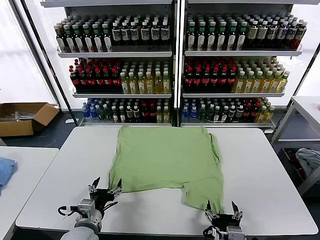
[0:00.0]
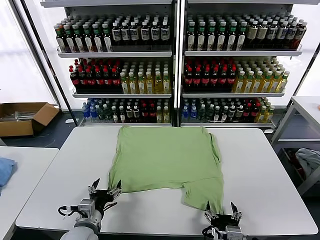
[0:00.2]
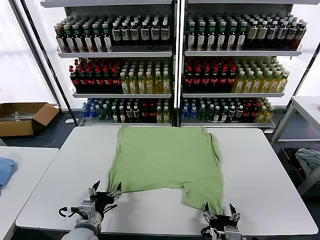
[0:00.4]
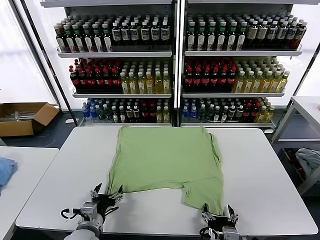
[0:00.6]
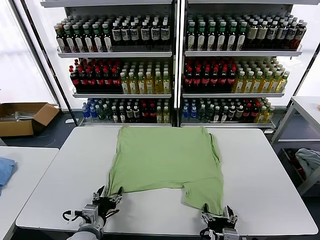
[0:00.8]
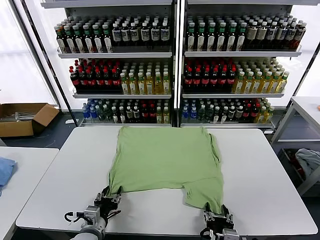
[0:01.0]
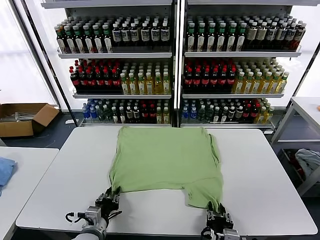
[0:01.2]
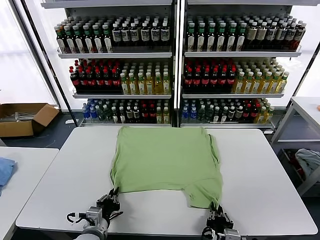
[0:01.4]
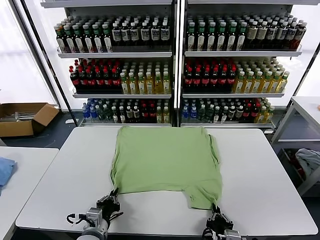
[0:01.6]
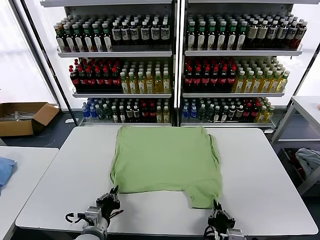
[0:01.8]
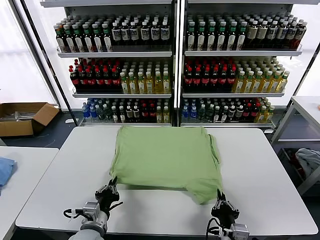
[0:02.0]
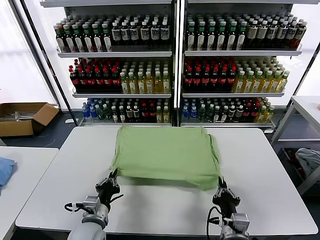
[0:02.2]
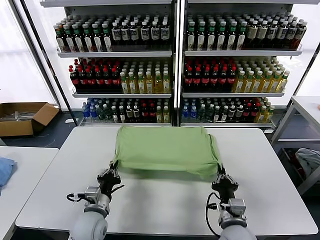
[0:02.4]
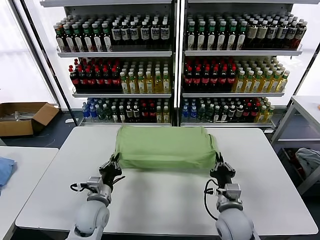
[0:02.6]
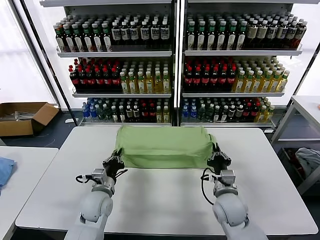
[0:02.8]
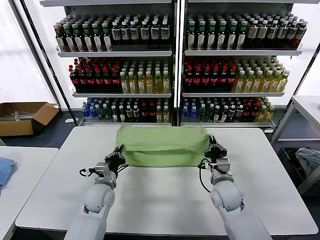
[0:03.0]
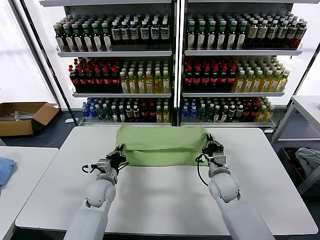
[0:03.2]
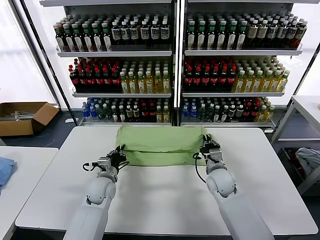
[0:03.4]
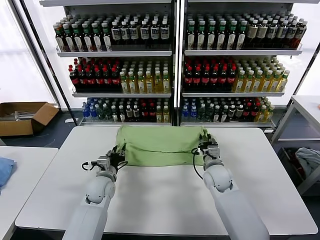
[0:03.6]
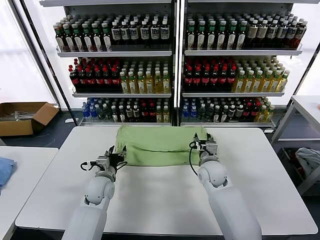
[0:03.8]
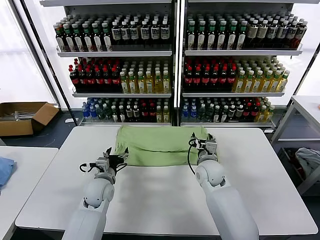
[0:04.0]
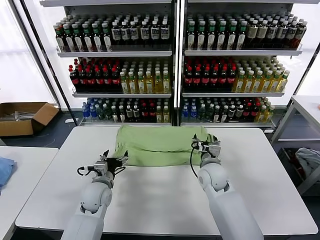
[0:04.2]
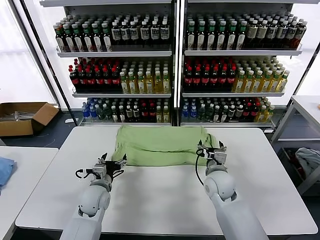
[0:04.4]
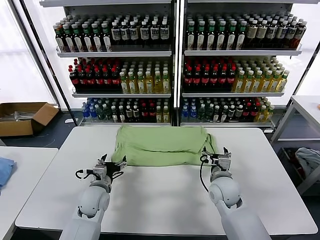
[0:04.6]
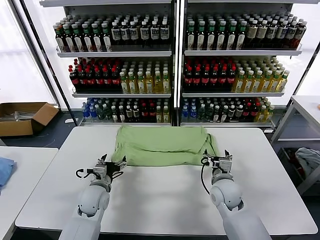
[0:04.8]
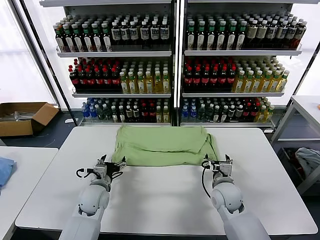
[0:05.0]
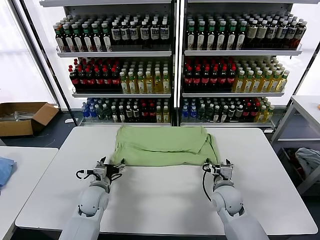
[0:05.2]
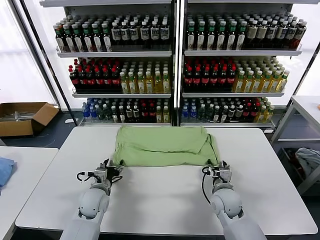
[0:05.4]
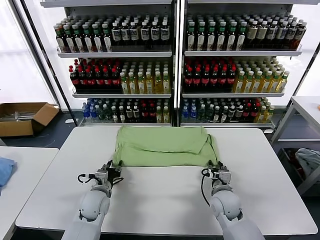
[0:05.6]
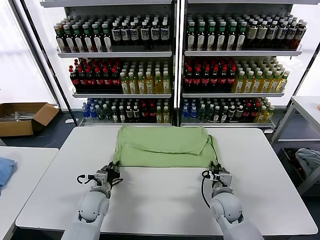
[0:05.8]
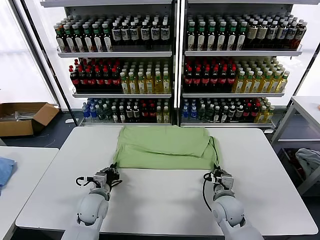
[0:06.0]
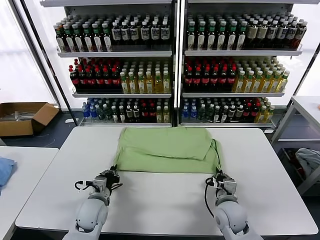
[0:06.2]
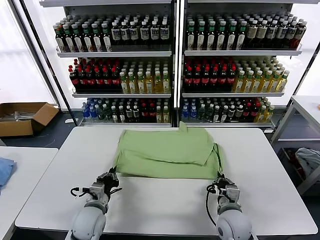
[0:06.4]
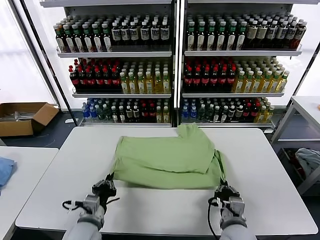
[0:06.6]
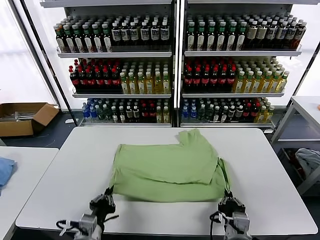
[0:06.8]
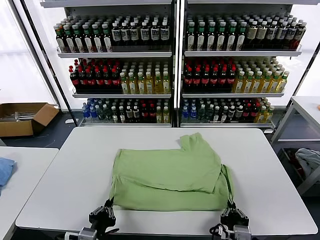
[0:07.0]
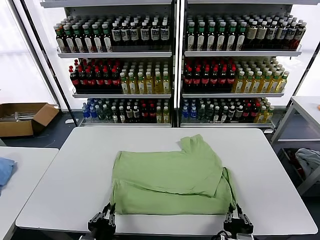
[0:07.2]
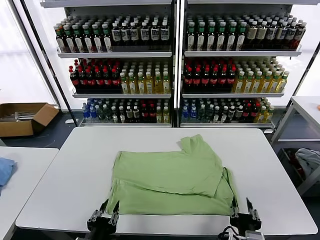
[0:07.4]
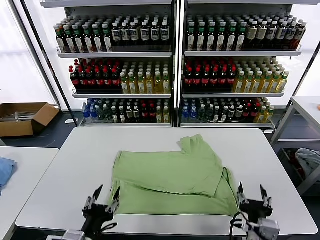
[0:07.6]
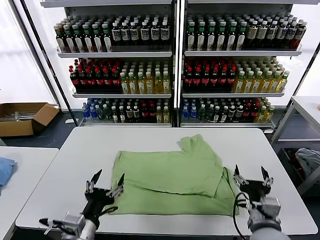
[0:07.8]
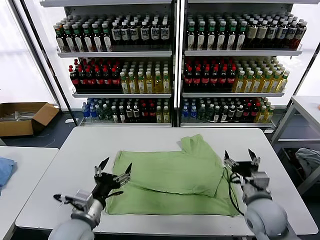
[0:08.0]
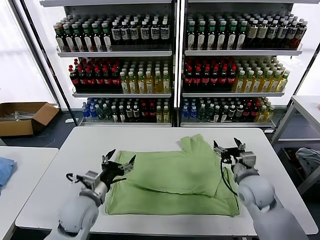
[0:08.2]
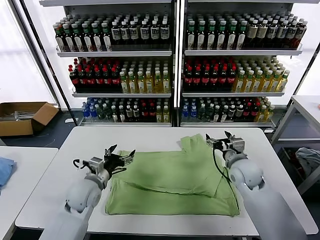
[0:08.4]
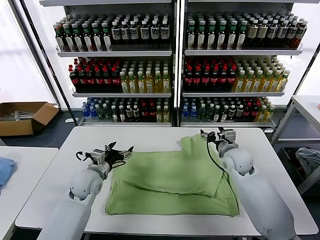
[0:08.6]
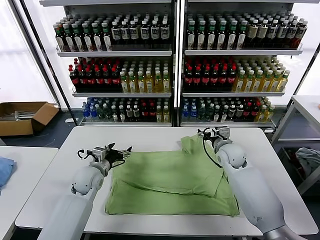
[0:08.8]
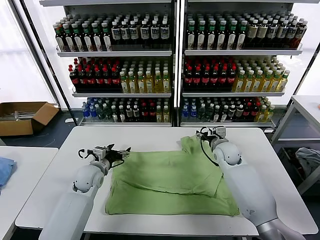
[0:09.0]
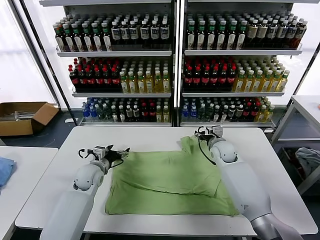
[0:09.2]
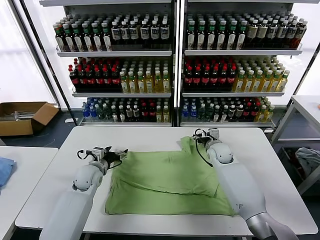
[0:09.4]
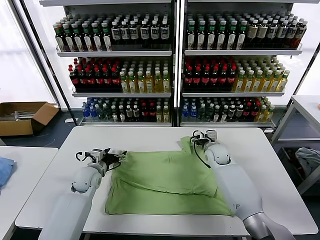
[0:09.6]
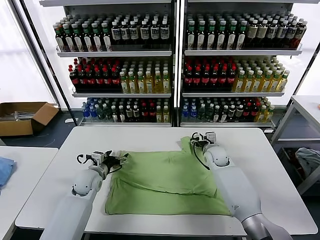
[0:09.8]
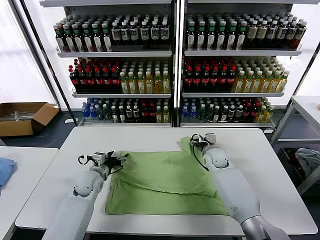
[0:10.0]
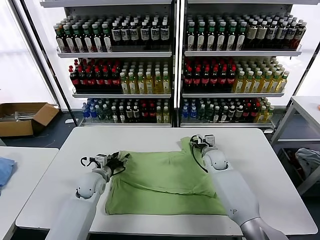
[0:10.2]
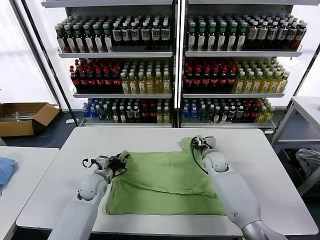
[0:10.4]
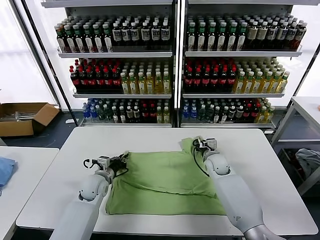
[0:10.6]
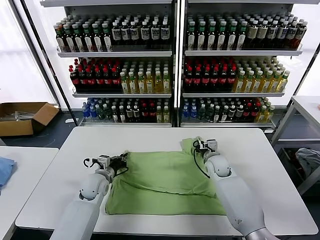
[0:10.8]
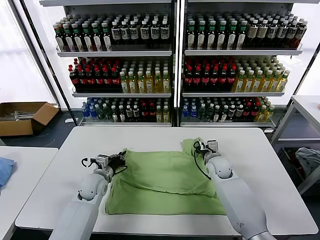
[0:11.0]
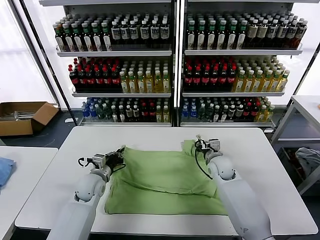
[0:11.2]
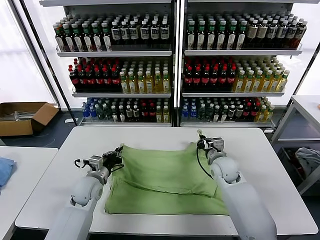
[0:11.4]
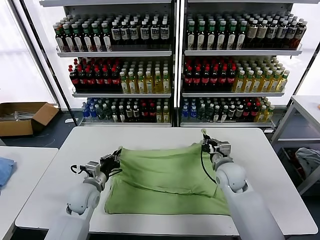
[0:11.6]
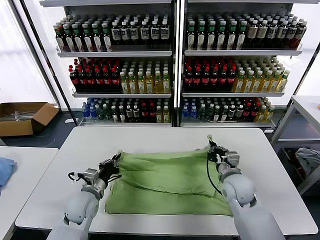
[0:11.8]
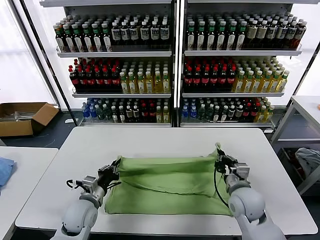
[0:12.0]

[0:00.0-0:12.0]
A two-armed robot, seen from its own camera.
Task of the whole recording: fold and organize the clothes.
Step, 0.0 to 1.6 s: use both grippers simultaneously to clamp the lower edge of the clothing fabric.
Step, 1.8 to 3.6 s: use both grippers to drag the lower edge of the fabric forward and fold it over the upper edge.
Step, 3.8 to 7.2 s: Drag the clothes downward with both gripper.
Step, 7.6 to 10.8 s: use both grippers simultaneously to clamp the upper edge of the clothing fabric.
1.6 to 3.0 s: Both grippers travel together forward, some 20 cm.
3.0 to 4.4 s: The left gripper opens. The right gripper opens up.
4.4 to 6.0 s: The right gripper is displaced backward and downward by about 10 cm, and closes up. The left gripper closes up.
6.0 to 7.6 s: The two grippers go about 20 cm backward and upward. The left gripper opens, while the right gripper opens.
7.6 to 9.0 s: Both grippers travel together forward, roughly 35 cm.
9.0 to 10.4 s: The left gripper closes up. The right gripper shifts approximately 5 cm downward, and closes.
10.4 to 12.0 s: The right gripper shifts about 20 cm backward, and closes its fingers. The left gripper is displaced backward by some 10 cm, and closes.

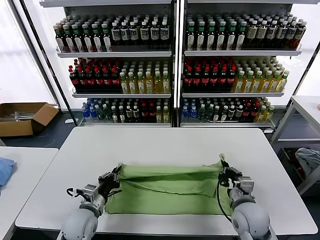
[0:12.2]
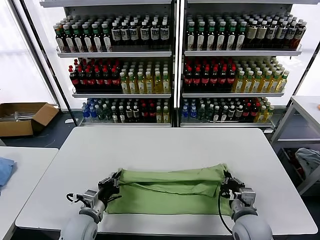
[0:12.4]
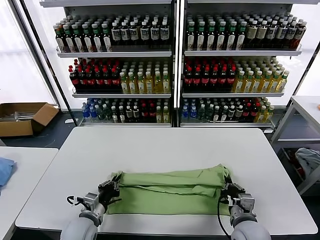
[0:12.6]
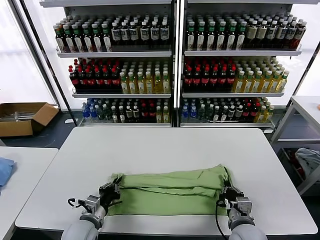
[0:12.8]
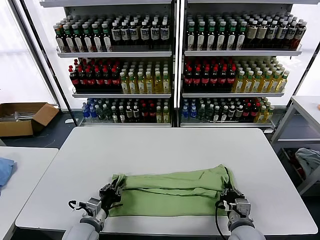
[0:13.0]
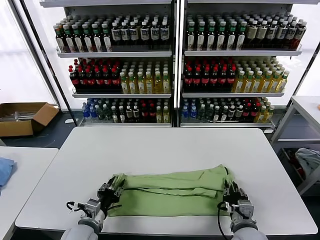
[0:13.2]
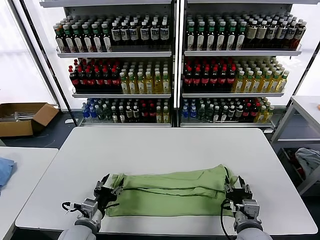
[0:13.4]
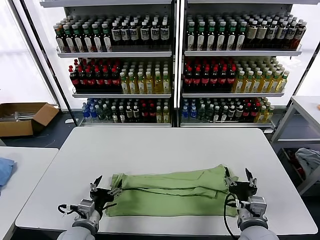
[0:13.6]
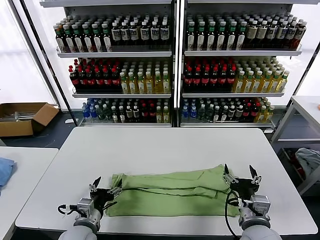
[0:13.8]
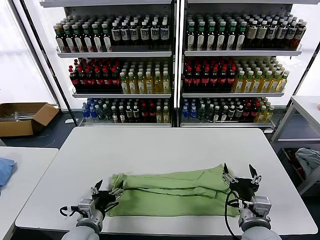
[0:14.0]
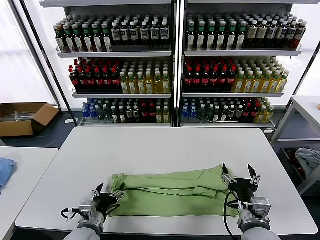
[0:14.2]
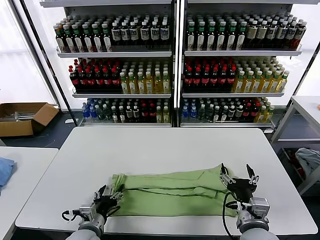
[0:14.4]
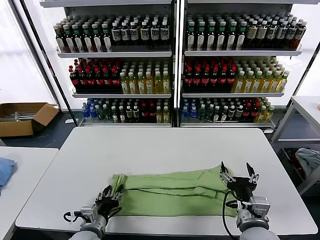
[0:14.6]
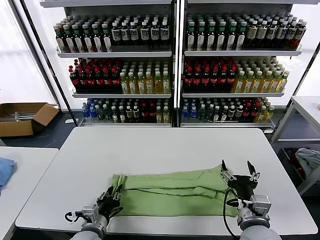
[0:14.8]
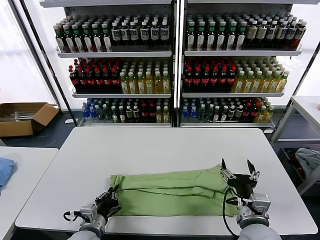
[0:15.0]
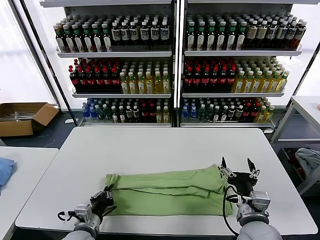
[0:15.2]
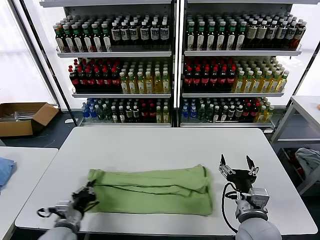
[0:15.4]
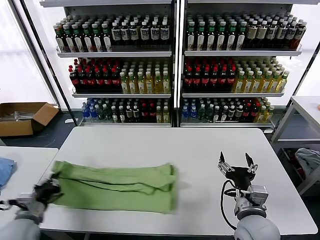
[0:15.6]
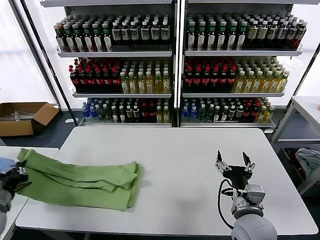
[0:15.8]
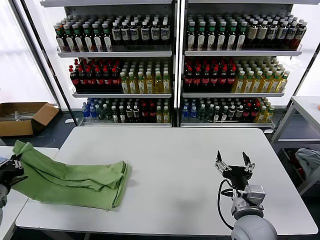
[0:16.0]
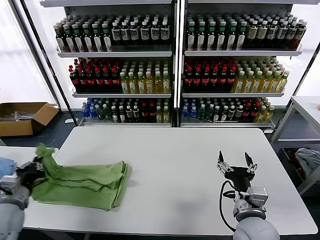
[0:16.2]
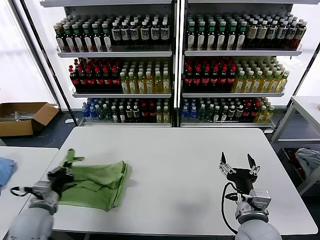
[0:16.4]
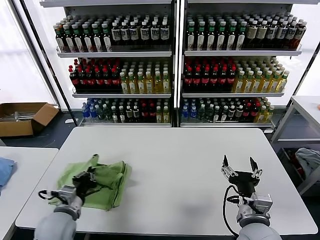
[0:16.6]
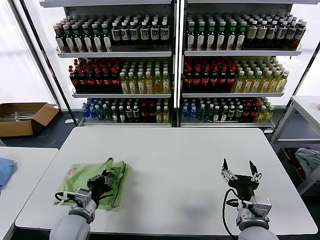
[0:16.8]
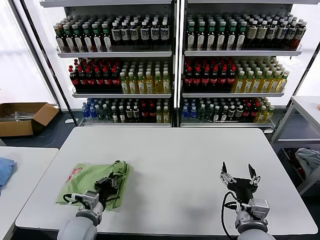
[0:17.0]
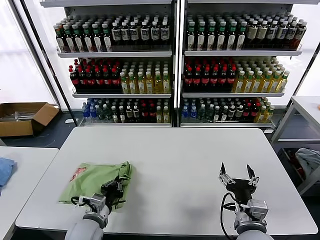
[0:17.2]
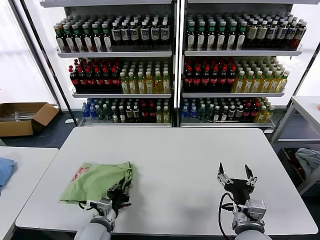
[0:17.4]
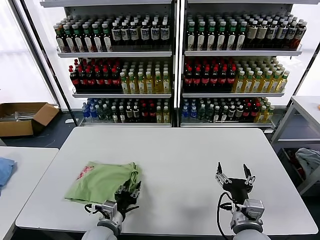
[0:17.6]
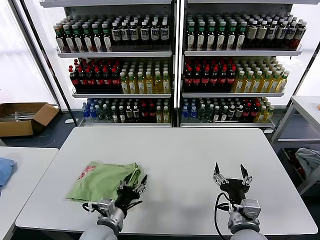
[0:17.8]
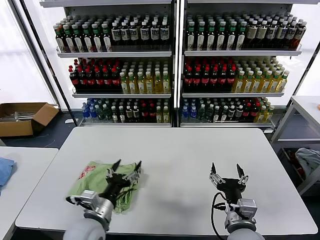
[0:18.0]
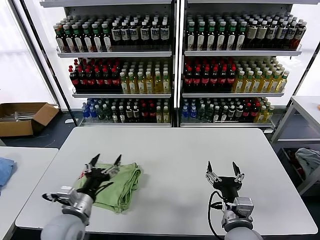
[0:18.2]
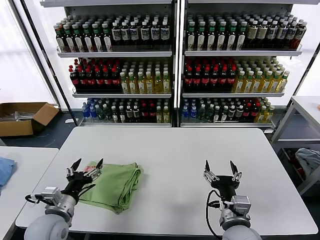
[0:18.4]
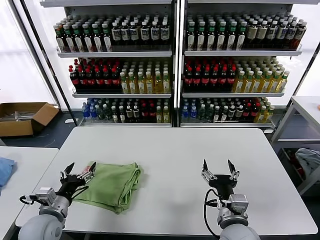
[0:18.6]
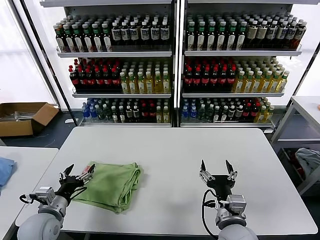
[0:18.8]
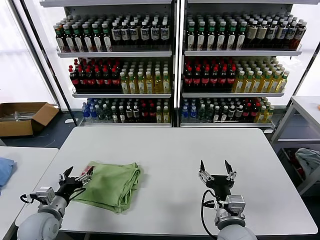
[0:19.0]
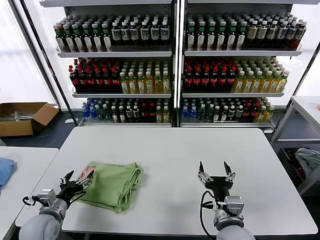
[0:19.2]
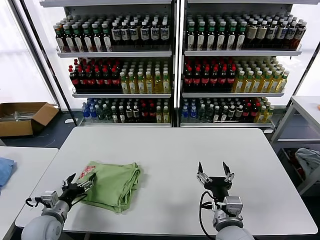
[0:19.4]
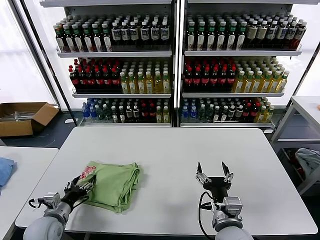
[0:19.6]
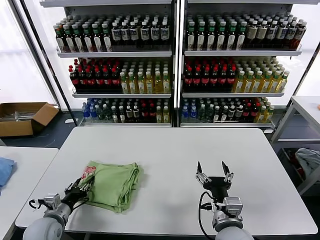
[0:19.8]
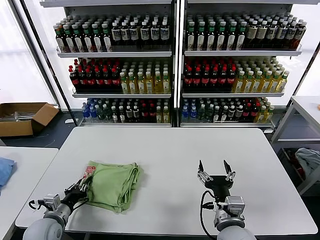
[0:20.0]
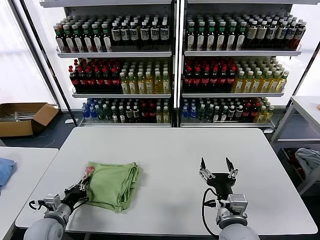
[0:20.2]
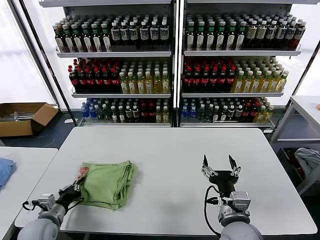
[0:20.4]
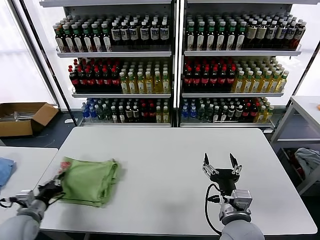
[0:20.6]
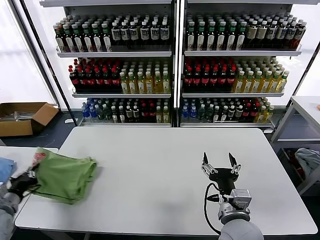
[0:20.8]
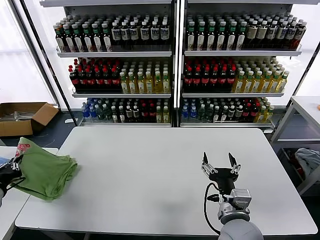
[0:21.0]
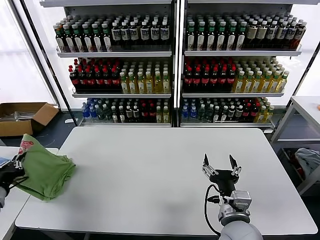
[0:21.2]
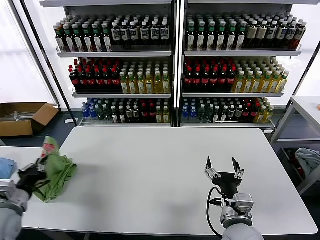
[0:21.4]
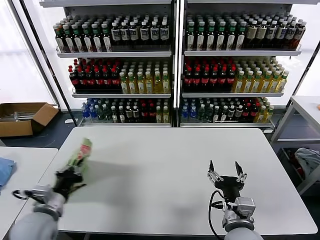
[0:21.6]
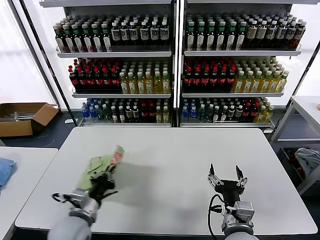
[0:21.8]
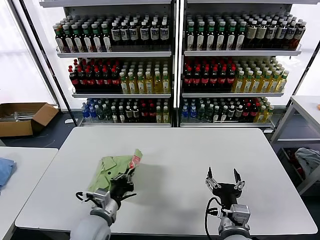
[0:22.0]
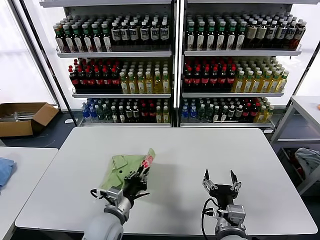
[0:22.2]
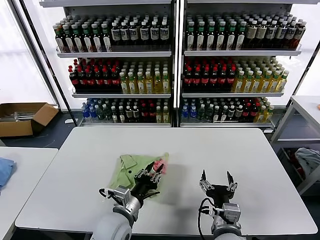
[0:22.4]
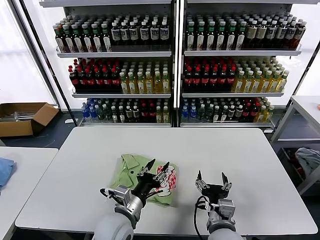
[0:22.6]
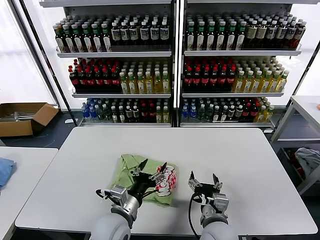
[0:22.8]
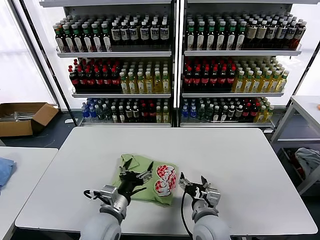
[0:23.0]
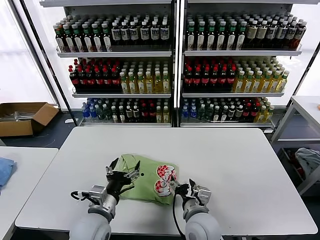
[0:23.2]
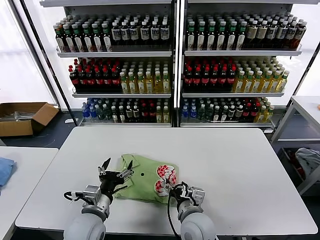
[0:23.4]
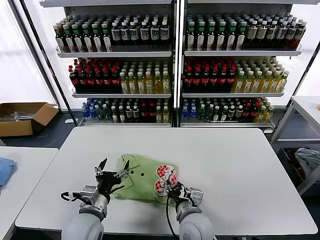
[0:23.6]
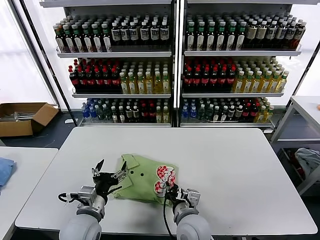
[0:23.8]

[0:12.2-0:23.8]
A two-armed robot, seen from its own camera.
Task of the whole recording: fold and organize the clothes.
Step, 13.6 to 15.0 s: use the left gripper to clamp the left edge of the fabric.
Step, 15.2 to 17.8 s: use the left gripper to drag the left edge of the fabric to the left and folds it over the right edge.
Step, 18.0 to 22.4 s: Flip the folded clothes over with left gripper.
12.2 to 13.6 s: Both grippers travel together backward, about 5 cm. The left gripper opens its fingers, while the right gripper opens.
13.6 to 15.0 s: The left gripper closes up.
15.0 to 16.6 s: The left gripper is displaced upward by approximately 5 cm, and travels to the left and back again, about 25 cm each way.
16.6 to 18.0 s: The left gripper heads to the right, covering approximately 10 cm, and opens.
18.0 to 19.4 s: The left gripper is displaced to the left by some 15 cm.
19.4 to 21.0 s: The left gripper moves to the left and upward, about 15 cm, and closes its fingers.
21.0 to 22.4 s: The left gripper shifts some 35 cm to the right, while the right gripper changes place by roughly 5 cm.
22.4 to 23.8 s: The right gripper moves to the left and forward, approximately 10 cm, and closes up, while the left gripper shifts some 10 cm to the left, and opens its fingers.
